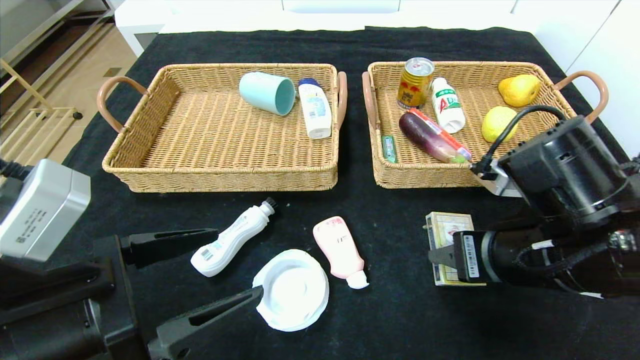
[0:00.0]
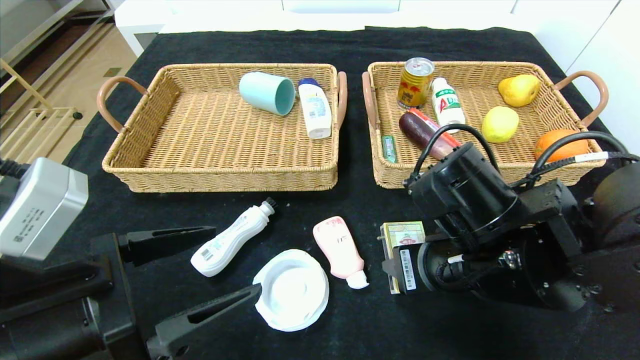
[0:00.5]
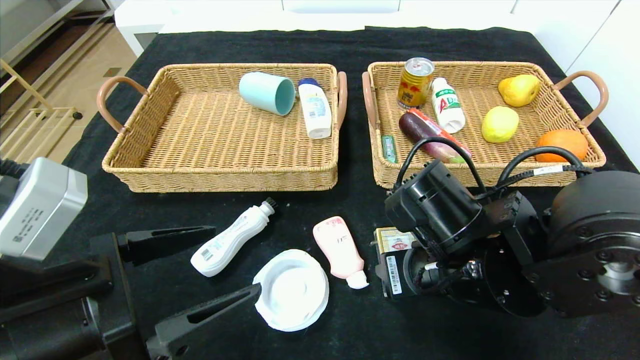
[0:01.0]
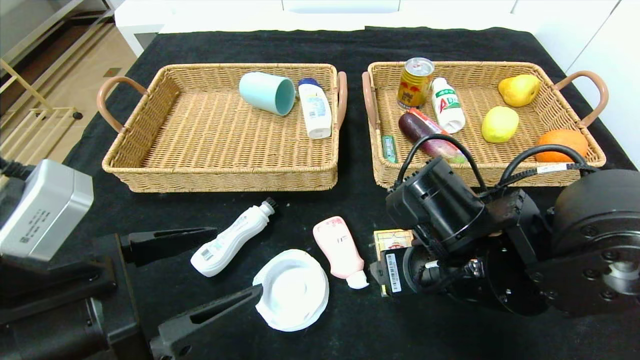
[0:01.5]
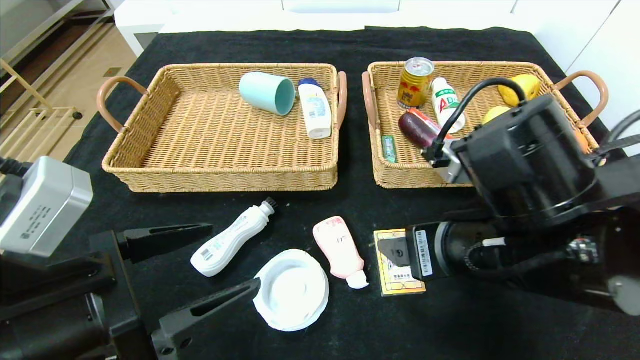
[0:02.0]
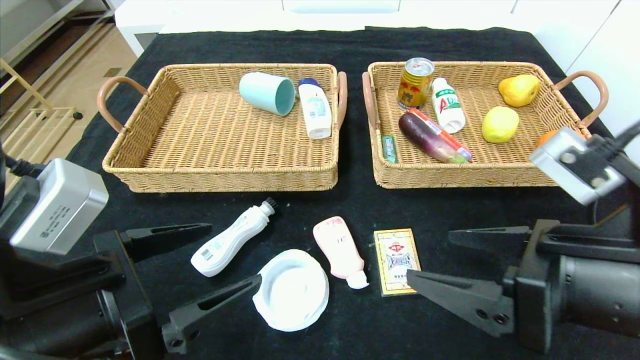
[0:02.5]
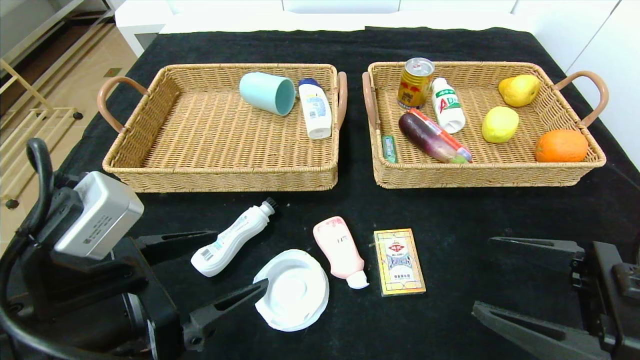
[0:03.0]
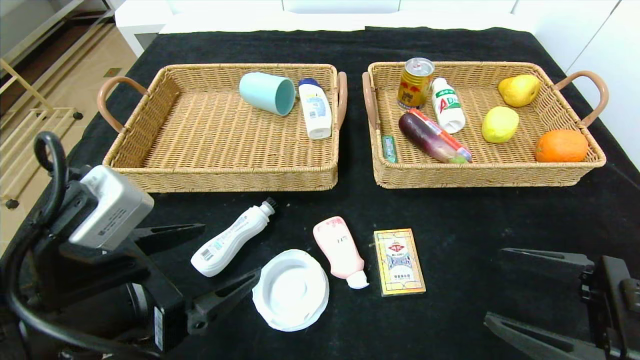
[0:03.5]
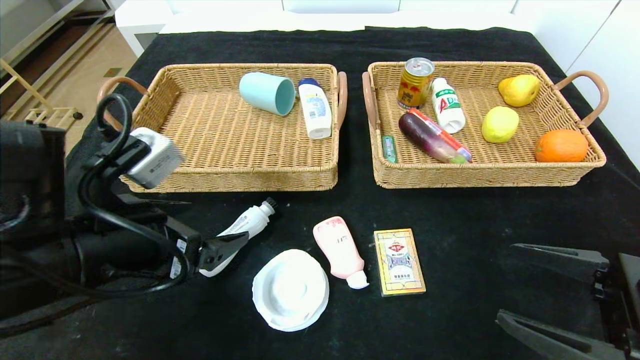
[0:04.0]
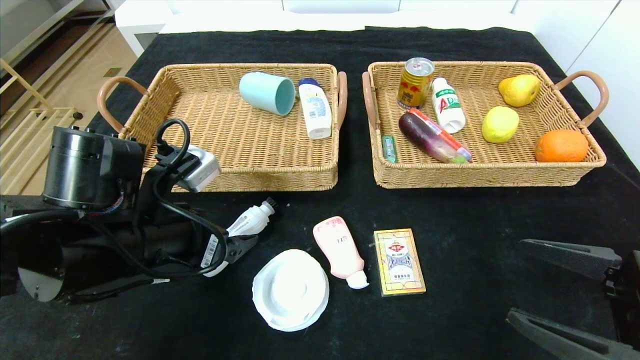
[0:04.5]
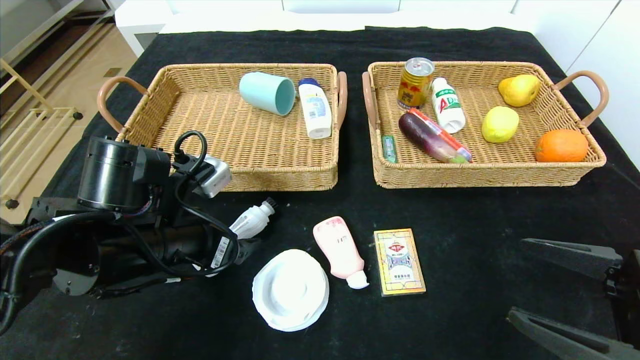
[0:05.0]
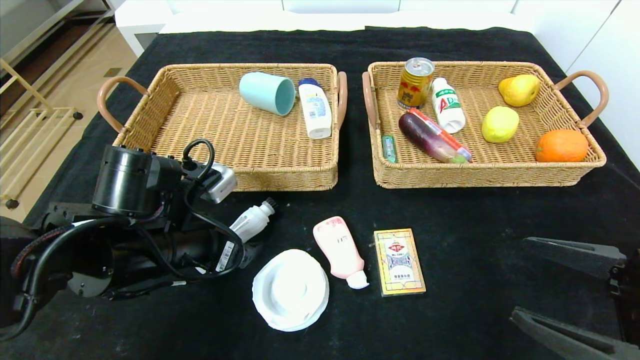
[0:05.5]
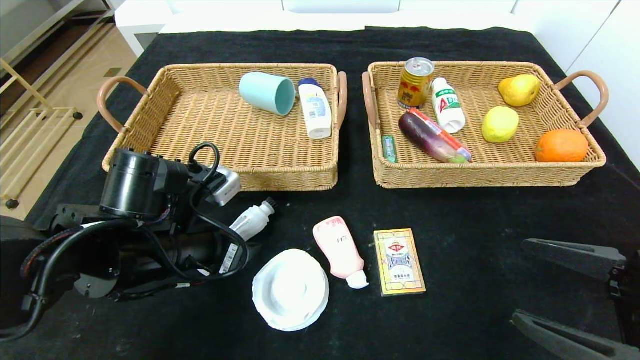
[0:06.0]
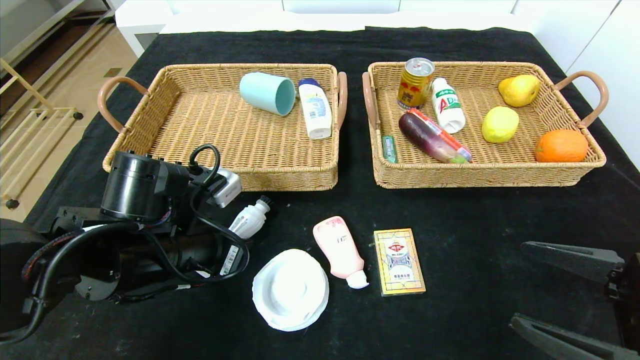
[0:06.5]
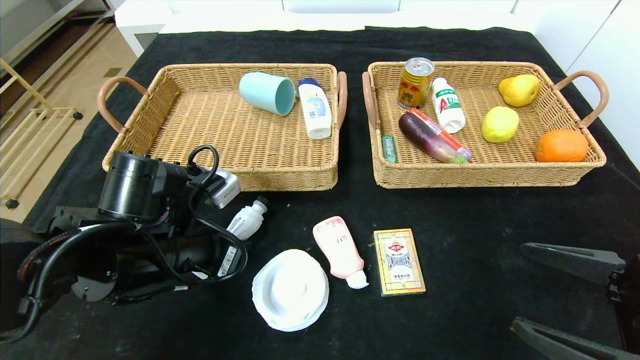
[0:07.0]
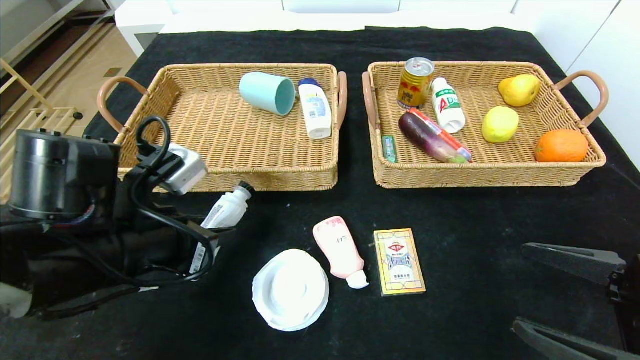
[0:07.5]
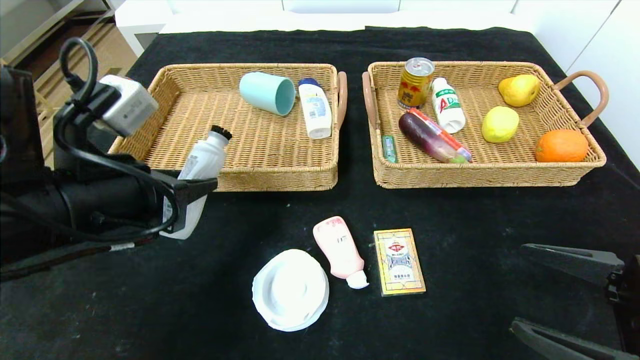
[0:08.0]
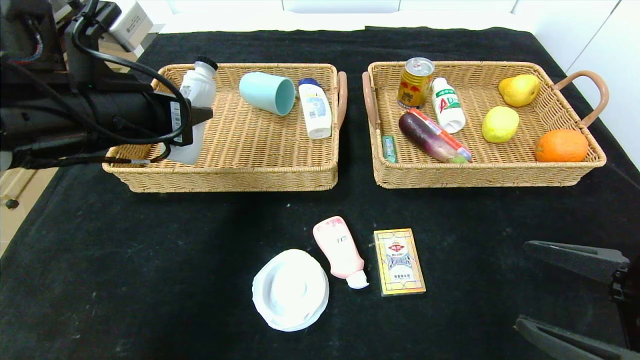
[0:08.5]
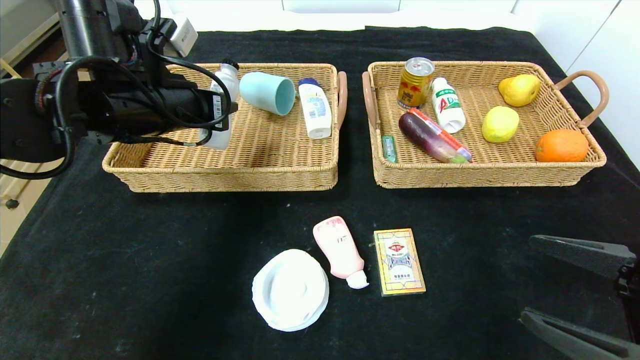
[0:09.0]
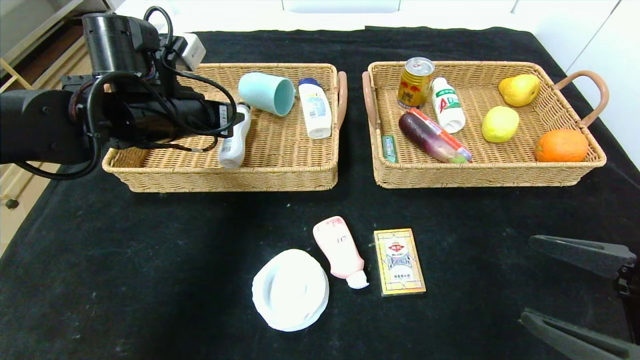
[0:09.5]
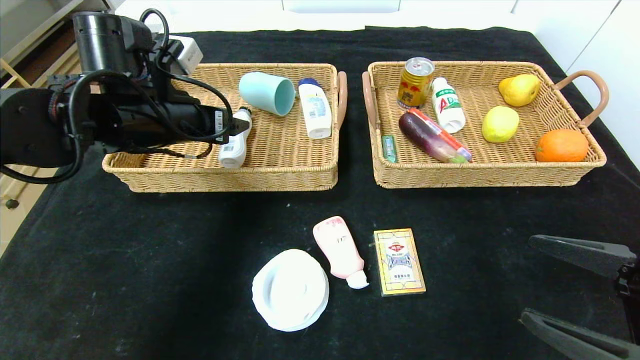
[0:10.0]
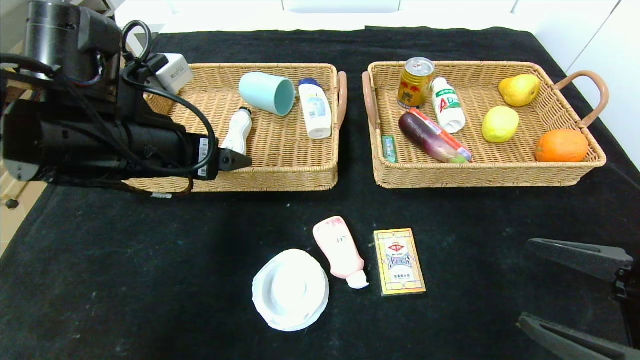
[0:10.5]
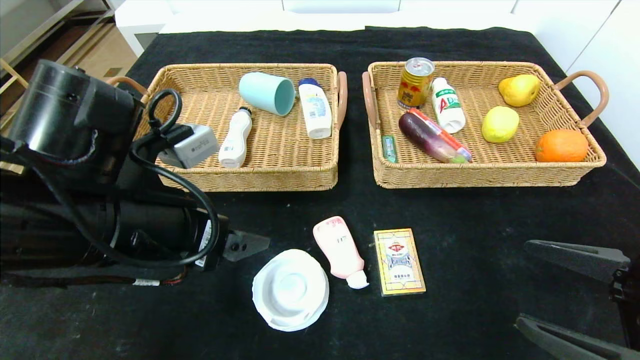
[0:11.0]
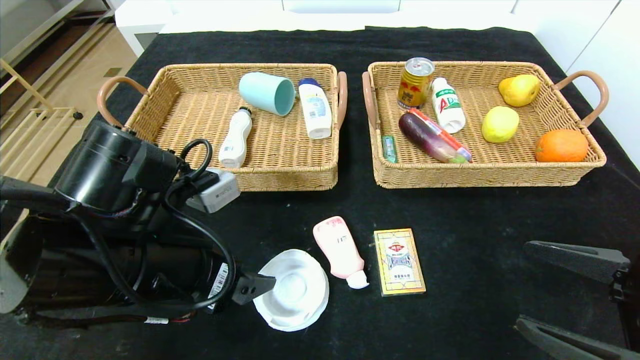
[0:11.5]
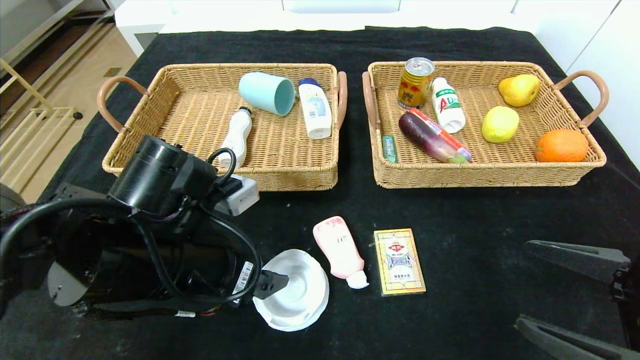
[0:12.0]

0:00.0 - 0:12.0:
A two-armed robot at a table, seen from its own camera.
Step, 0:02.0 - 0:09.5: Grasp the washing liquid and put it in the left basket.
0:00.0 - 0:02.0: The right gripper travels to the left by some 5 cm, and opens its fingers.
0:02.0 - 0:04.0: The left gripper goes some 5 cm forward. The right gripper travels to the right and backward by about 15 cm.
0:04.0 - 0:06.0: The left gripper goes roughly 10 cm forward and downward.
0:06.0 - 0:08.0: The left gripper goes approximately 10 cm upward, and closes.
0:08.0 - 0:10.0: The left gripper travels forward by roughly 15 cm, and opens.
0:10.0 - 0:12.0: The left gripper travels backward, downward and to the right by about 15 cm.

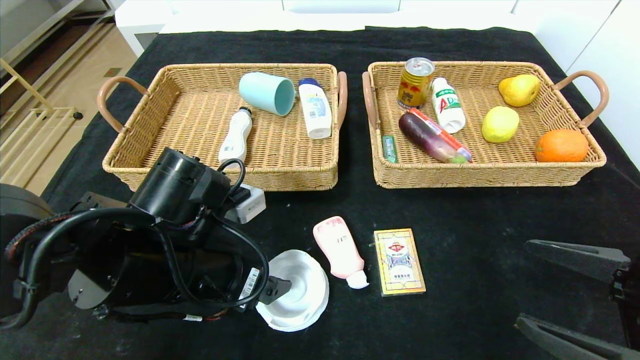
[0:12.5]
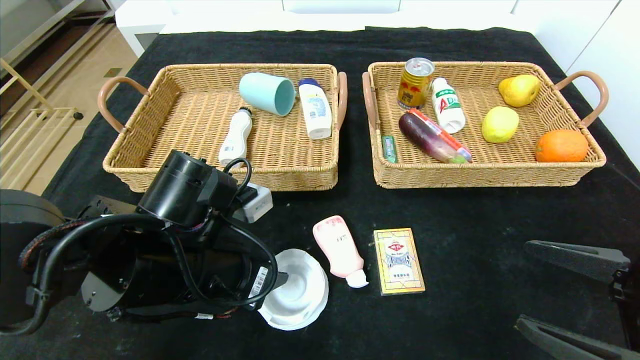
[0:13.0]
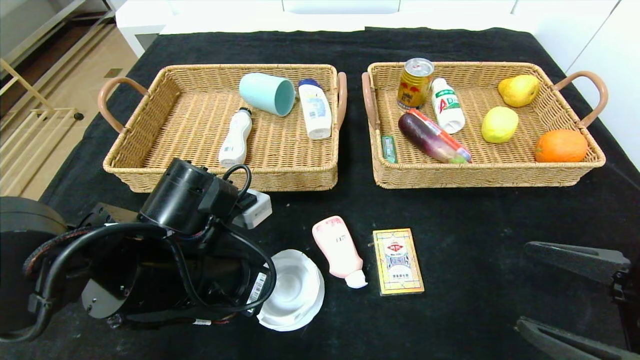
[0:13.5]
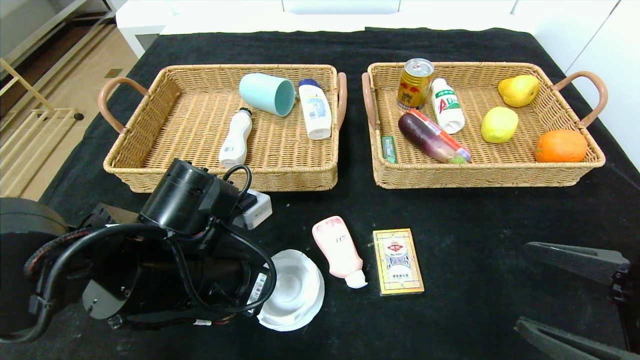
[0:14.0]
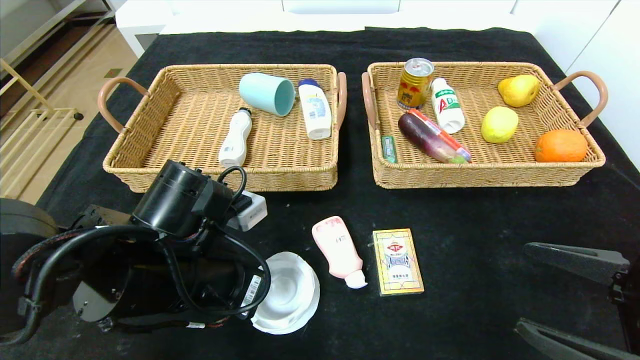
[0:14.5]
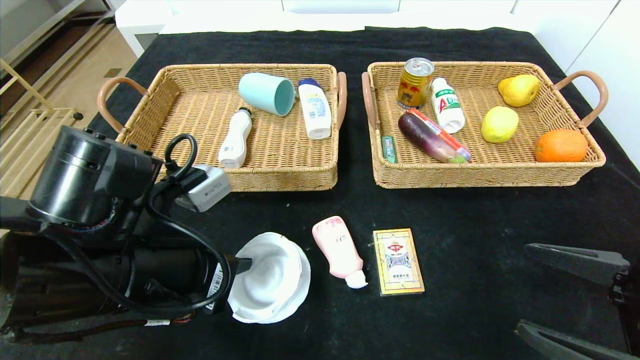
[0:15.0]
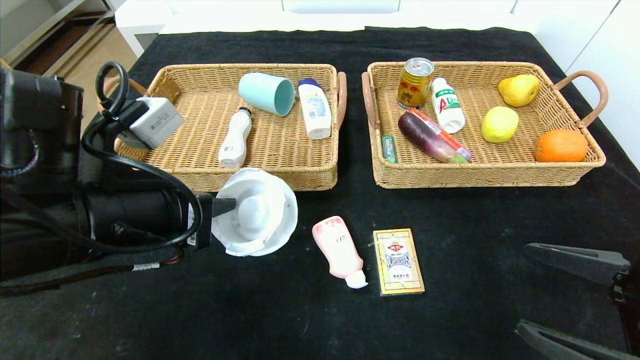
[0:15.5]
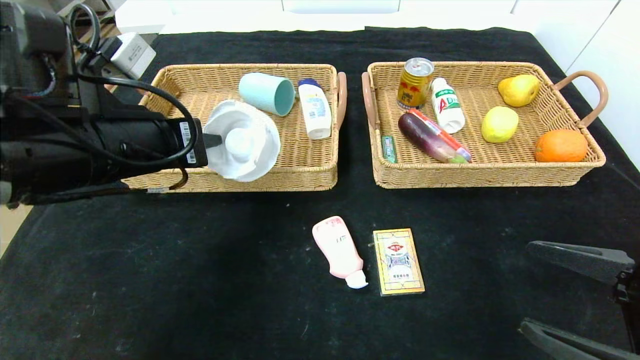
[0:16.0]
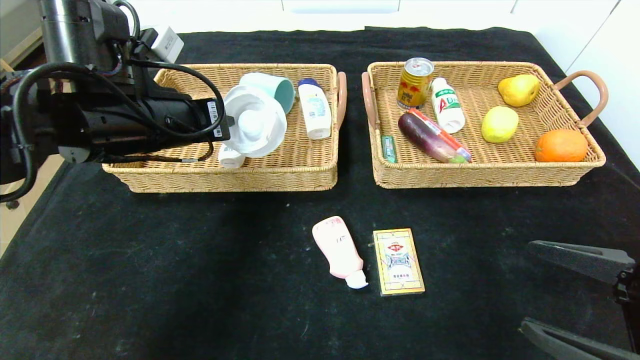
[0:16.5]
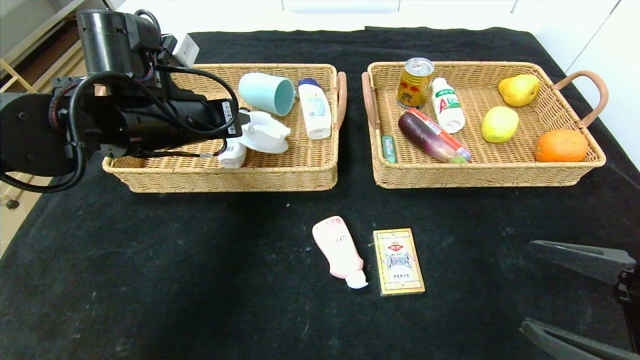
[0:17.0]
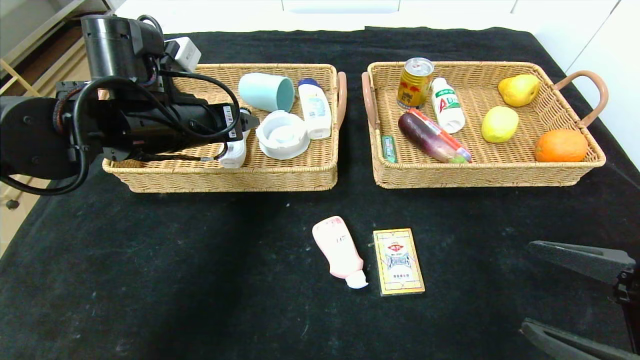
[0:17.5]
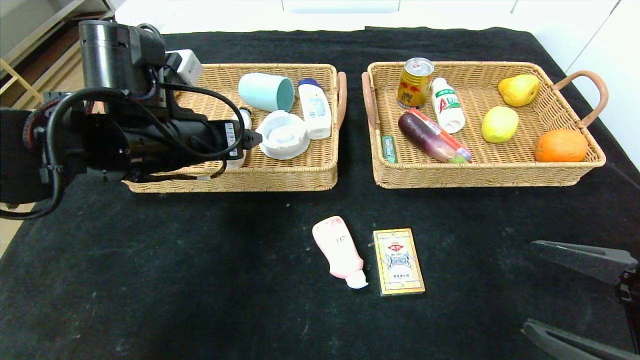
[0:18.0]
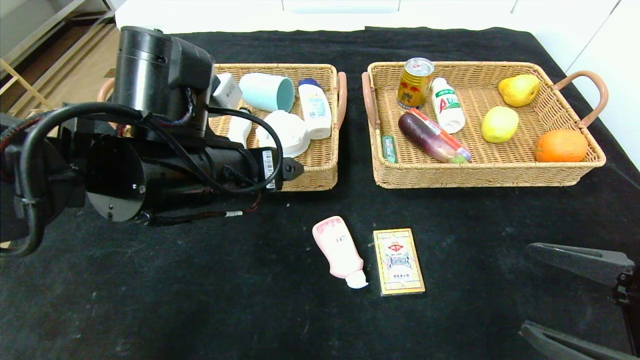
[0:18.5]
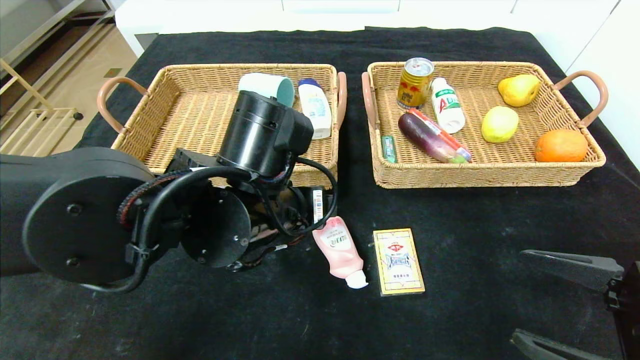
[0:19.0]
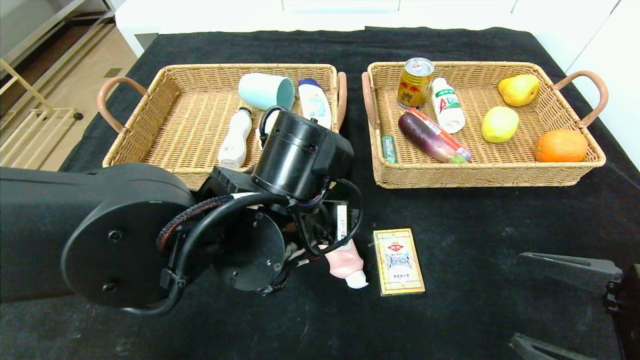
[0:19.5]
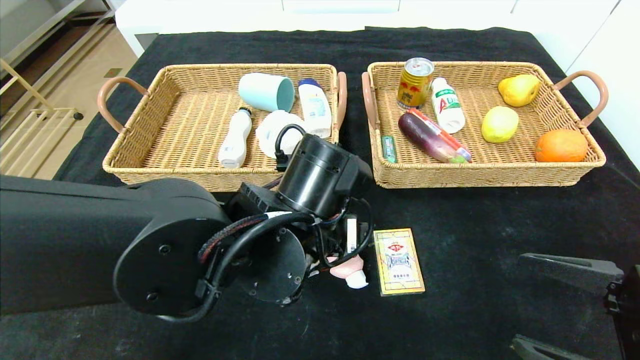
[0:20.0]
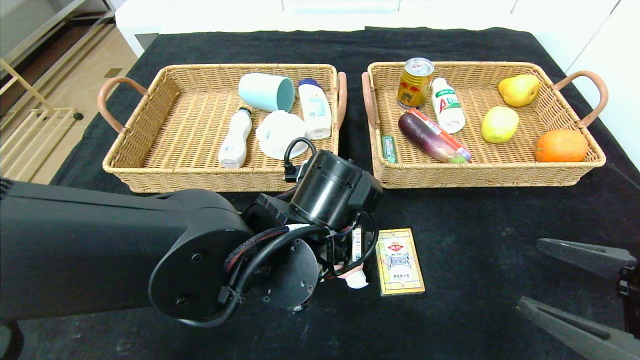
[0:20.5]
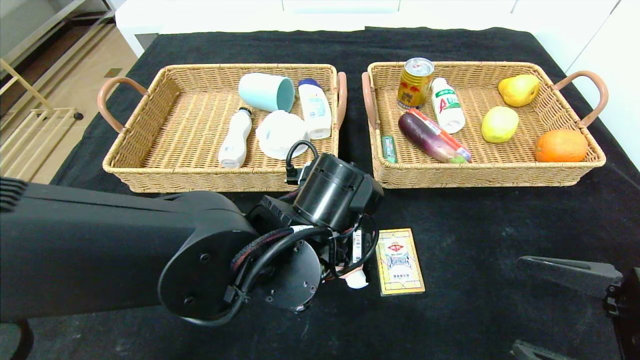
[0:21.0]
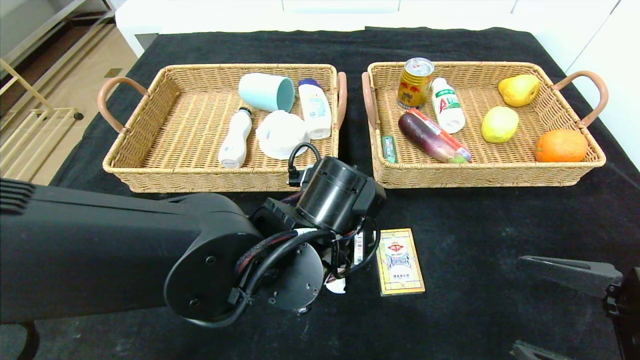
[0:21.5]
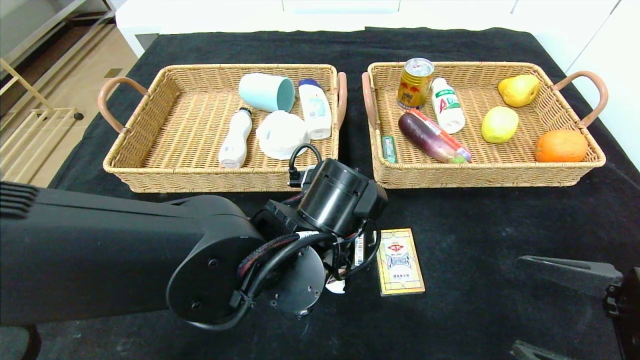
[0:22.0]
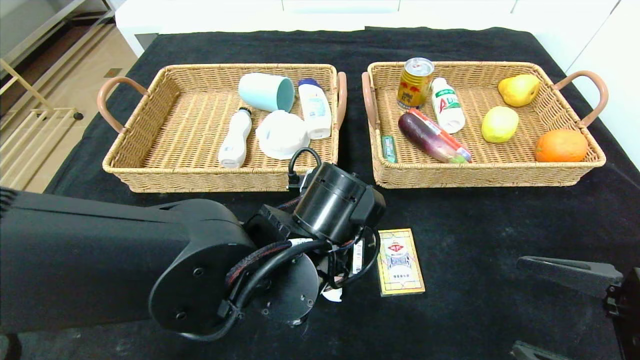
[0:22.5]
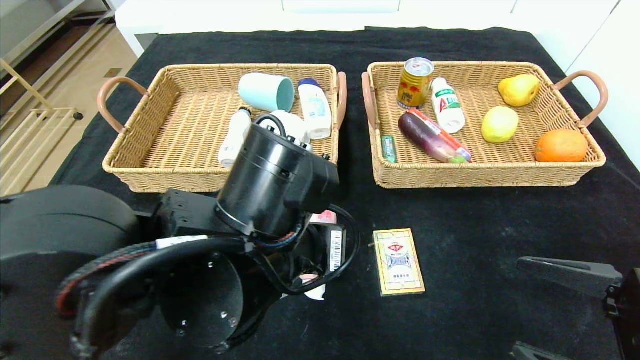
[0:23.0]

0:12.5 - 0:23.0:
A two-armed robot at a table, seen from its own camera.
Step, 0:12.5 - 0:17.0: Grasp the tape and put it in the left basket.
0:12.5 - 0:14.5: The left gripper closes.
0:14.5 - 0:16.5: The left gripper shifts about 15 cm upward and forward.
0:16.5 - 0:19.0: The left gripper goes some 15 cm to the right, downward and backward, and opens.
0:19.0 - 0:21.0: The left gripper moves about 5 cm.
0:21.0 - 0:23.0: The left gripper shifts by approximately 5 cm, and closes its fingers.
